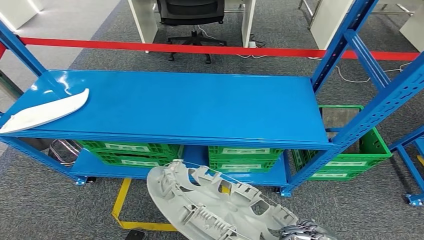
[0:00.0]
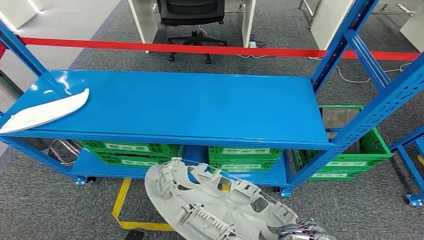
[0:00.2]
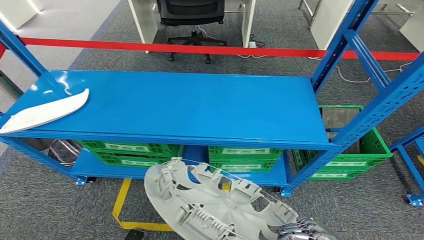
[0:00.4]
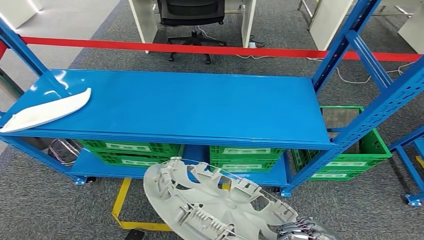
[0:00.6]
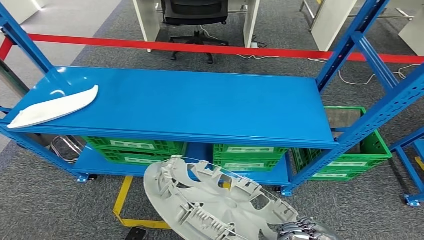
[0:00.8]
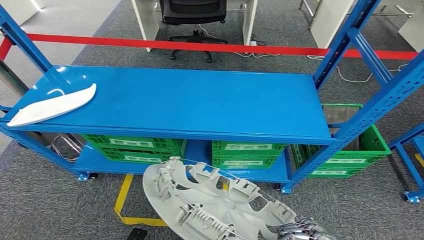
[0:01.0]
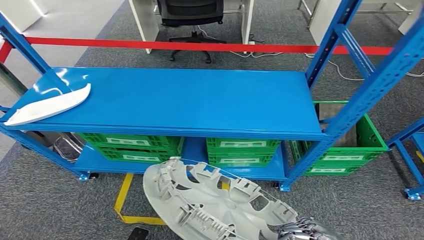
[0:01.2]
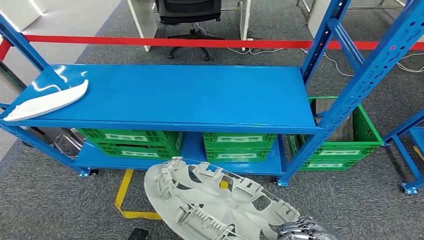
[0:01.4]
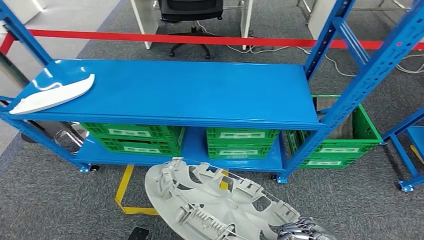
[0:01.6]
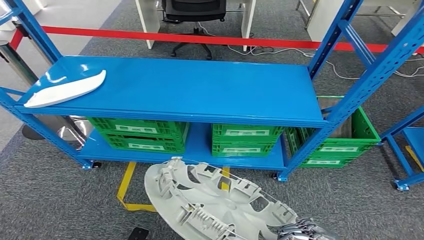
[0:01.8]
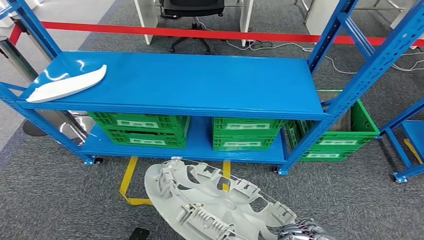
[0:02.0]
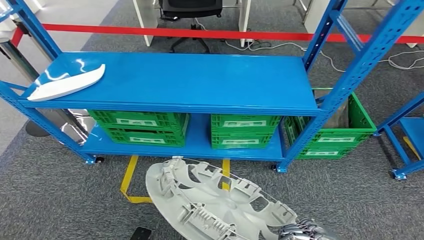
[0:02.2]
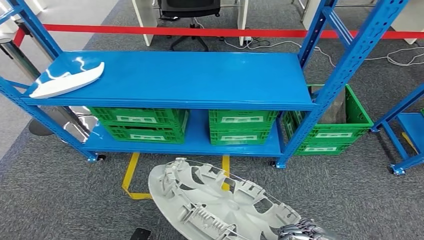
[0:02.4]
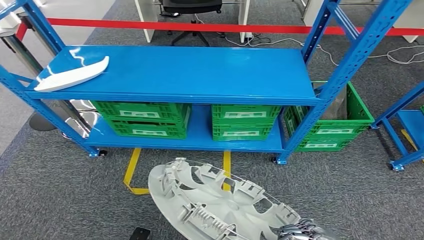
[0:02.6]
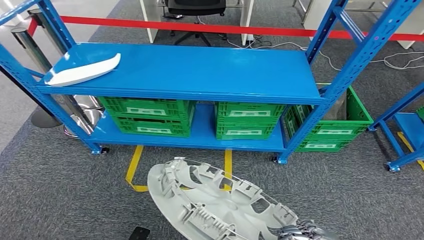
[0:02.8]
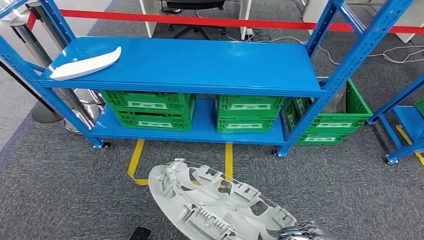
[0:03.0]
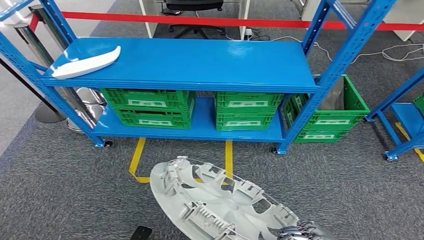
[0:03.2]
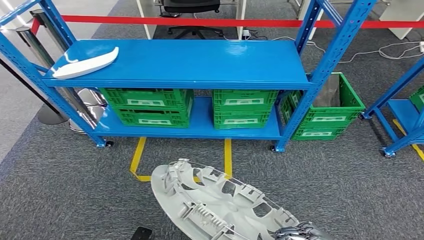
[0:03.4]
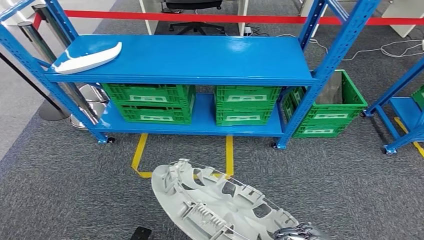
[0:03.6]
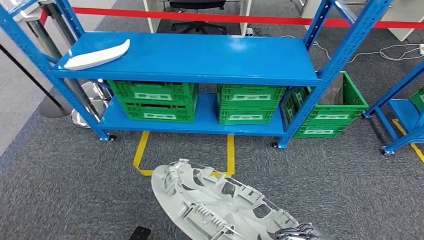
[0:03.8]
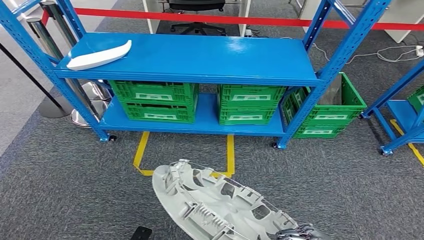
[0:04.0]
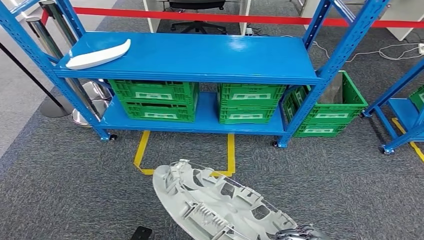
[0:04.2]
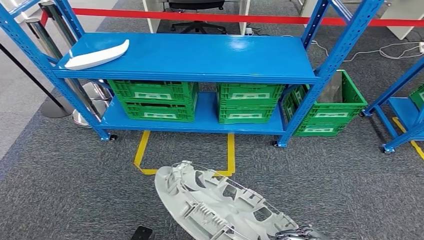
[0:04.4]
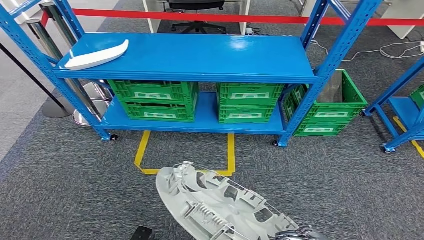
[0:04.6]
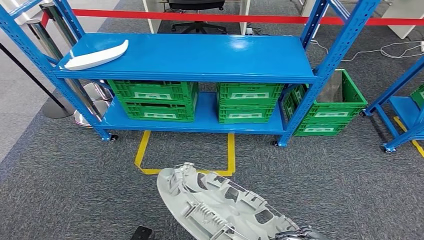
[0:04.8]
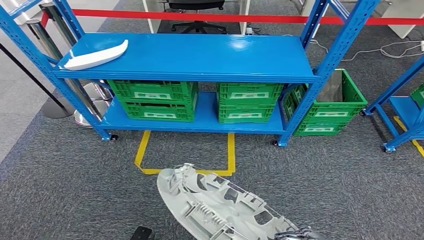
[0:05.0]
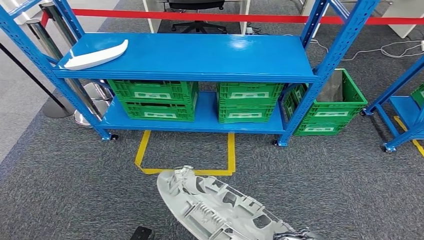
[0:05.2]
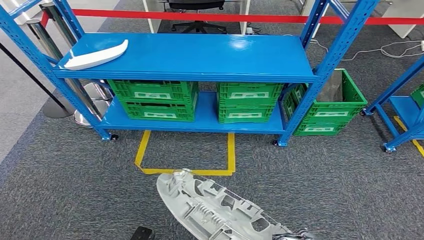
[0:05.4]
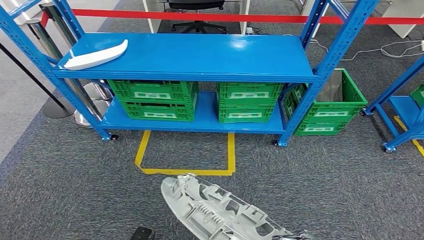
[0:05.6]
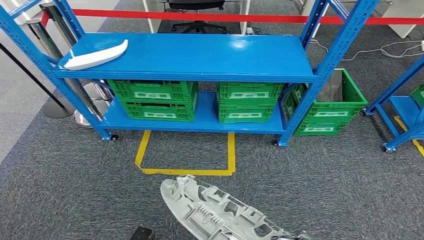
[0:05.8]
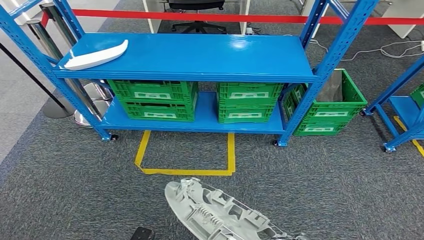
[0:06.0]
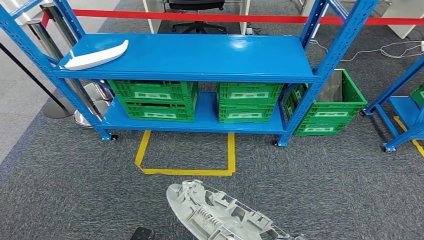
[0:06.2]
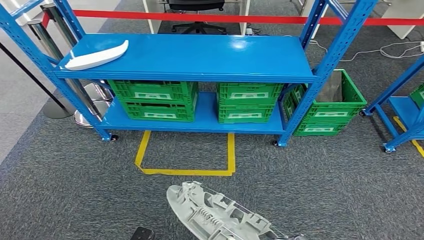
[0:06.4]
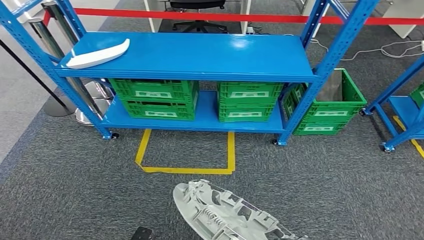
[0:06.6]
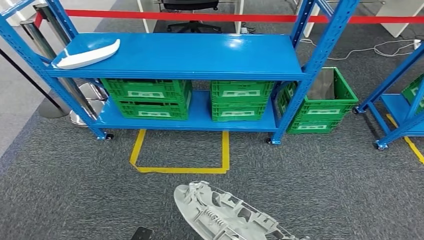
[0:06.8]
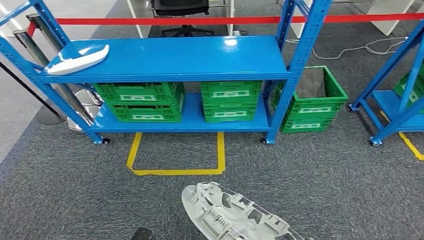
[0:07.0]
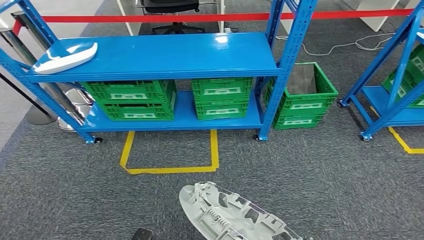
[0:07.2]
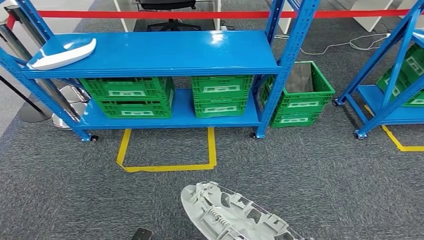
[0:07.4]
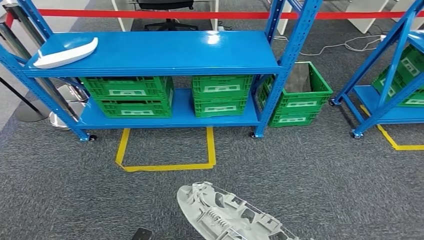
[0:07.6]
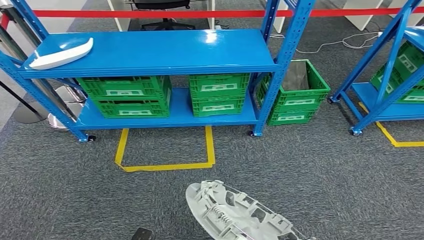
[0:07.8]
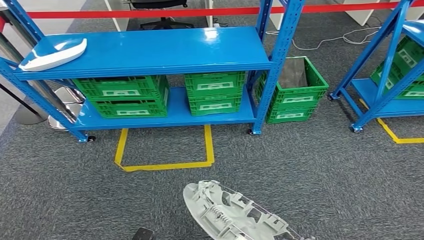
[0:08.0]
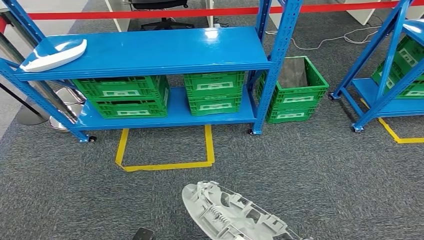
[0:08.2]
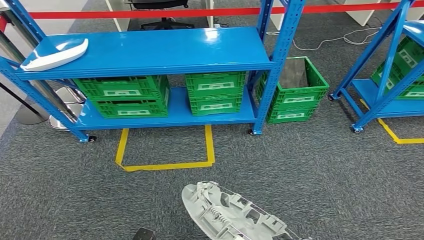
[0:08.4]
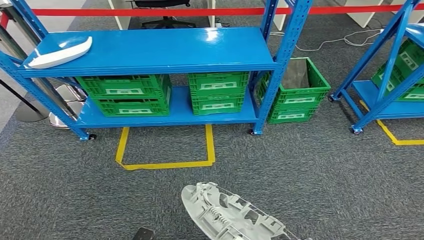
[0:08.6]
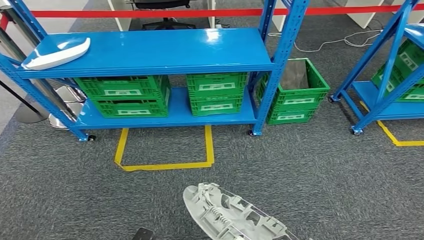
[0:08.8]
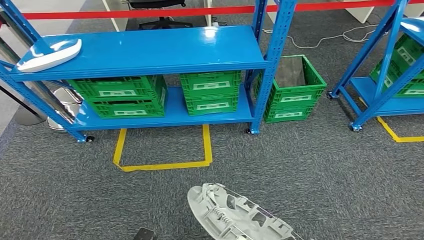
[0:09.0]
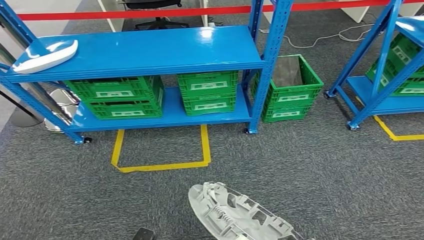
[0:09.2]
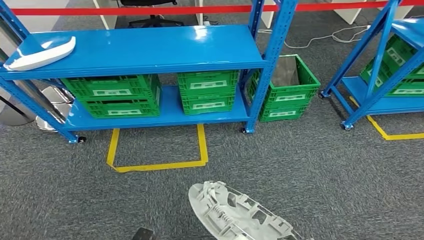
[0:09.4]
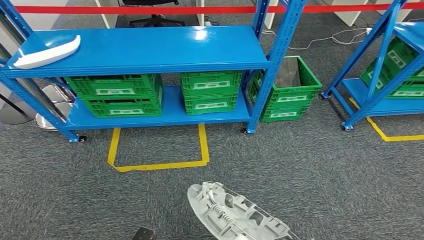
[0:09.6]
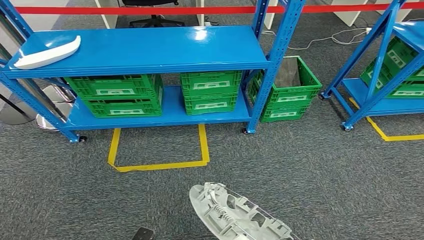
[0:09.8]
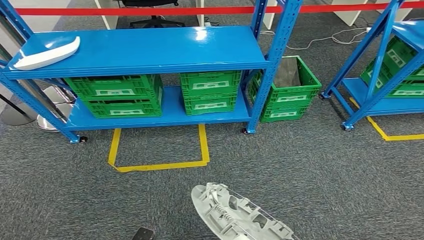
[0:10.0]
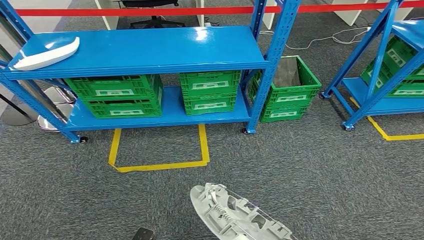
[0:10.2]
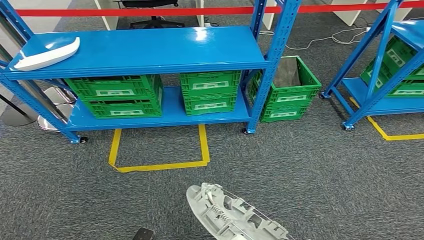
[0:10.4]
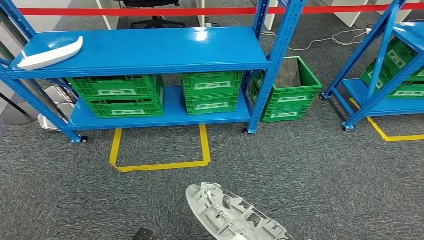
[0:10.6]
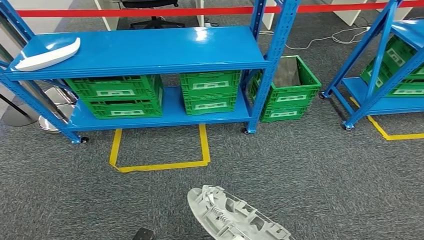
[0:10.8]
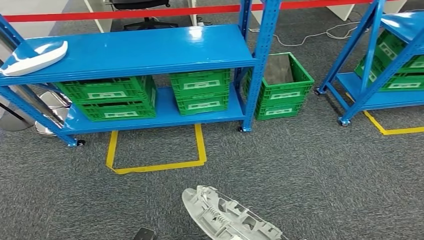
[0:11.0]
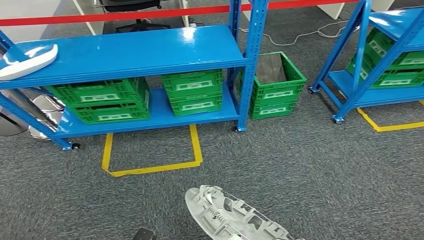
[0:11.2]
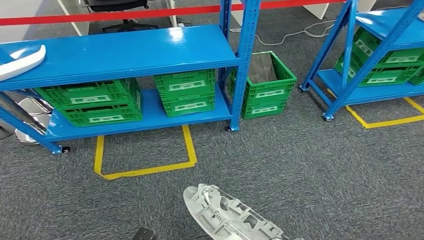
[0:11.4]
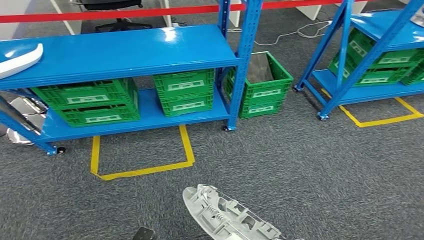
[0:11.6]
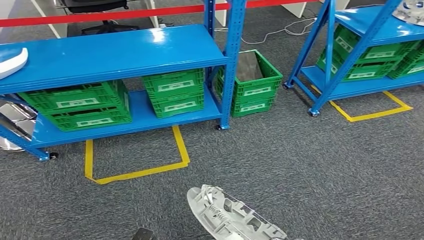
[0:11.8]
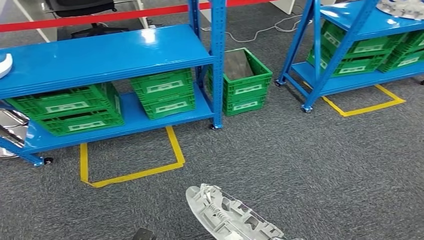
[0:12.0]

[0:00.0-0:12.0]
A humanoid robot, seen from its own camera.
0:04.4 to 0:06.0: The hands make only small movements.
0:09.0 to 0:10.4: Both hands stay put.

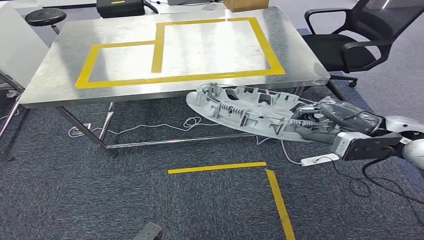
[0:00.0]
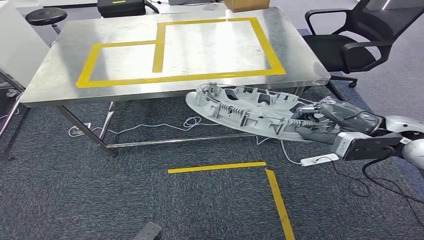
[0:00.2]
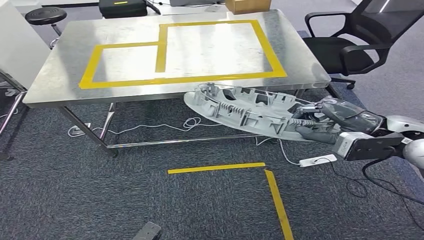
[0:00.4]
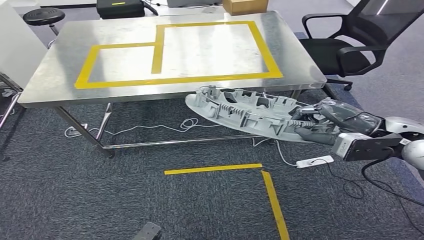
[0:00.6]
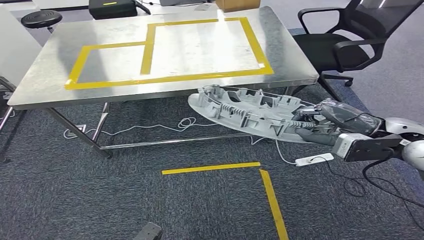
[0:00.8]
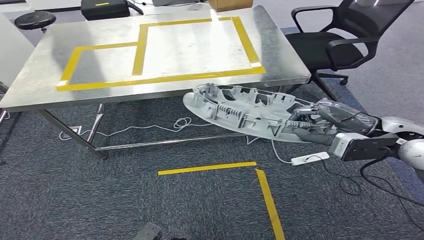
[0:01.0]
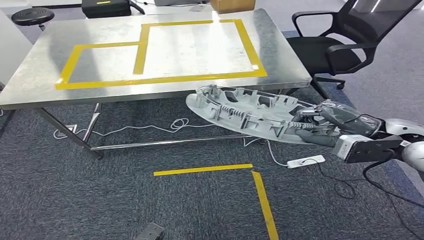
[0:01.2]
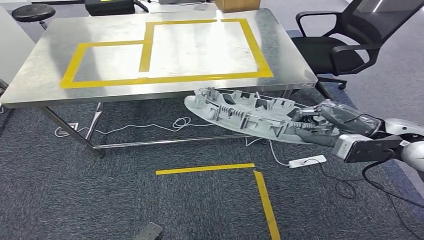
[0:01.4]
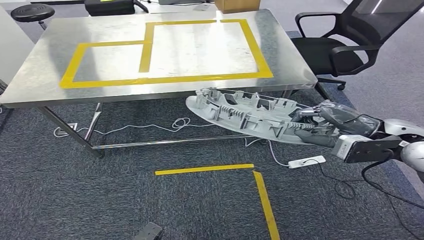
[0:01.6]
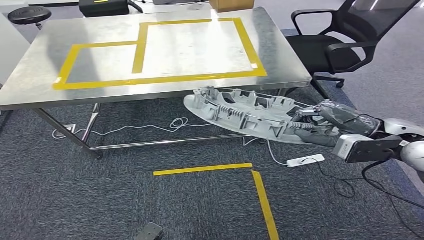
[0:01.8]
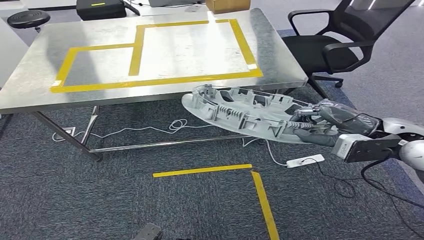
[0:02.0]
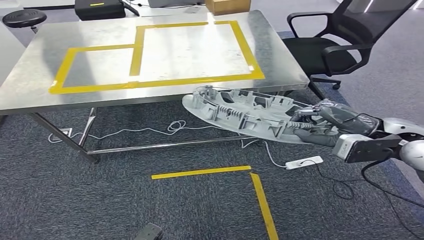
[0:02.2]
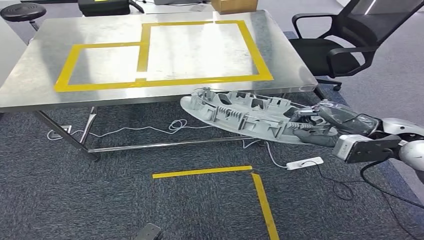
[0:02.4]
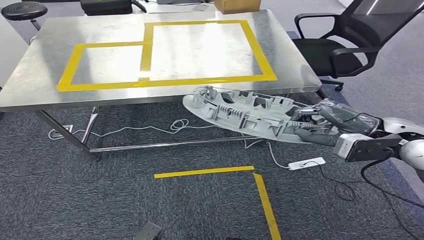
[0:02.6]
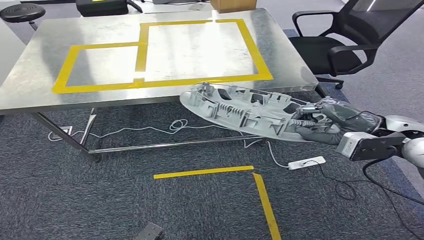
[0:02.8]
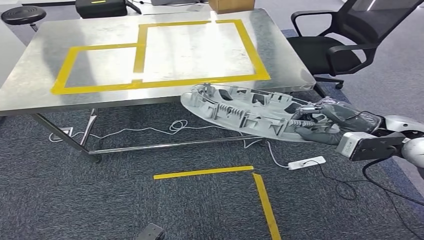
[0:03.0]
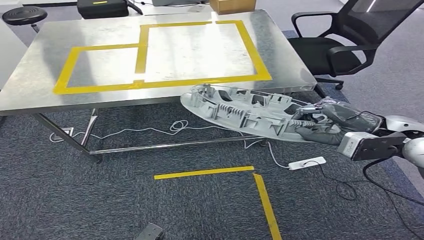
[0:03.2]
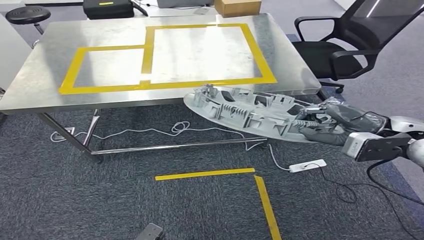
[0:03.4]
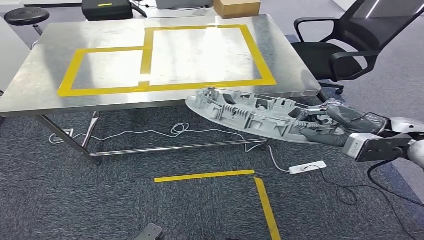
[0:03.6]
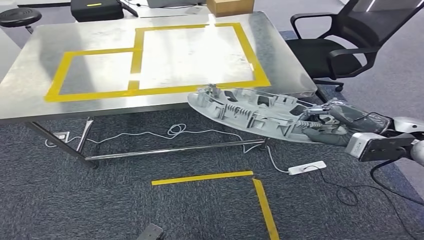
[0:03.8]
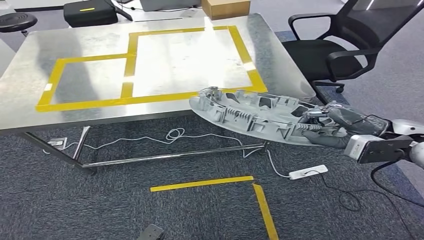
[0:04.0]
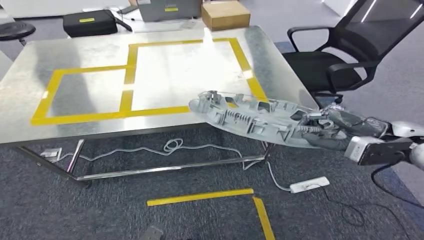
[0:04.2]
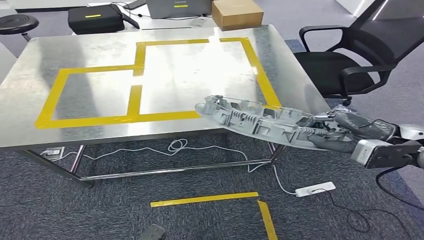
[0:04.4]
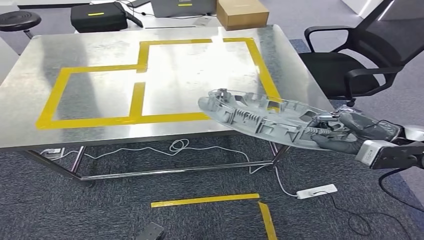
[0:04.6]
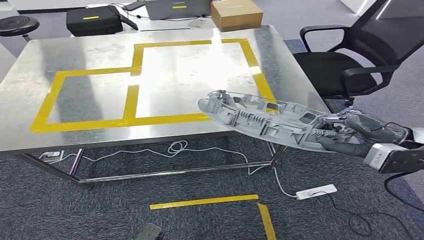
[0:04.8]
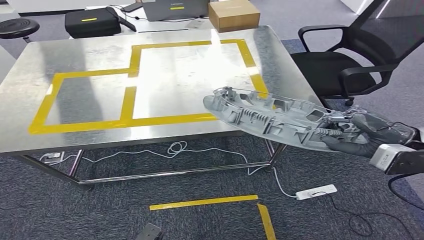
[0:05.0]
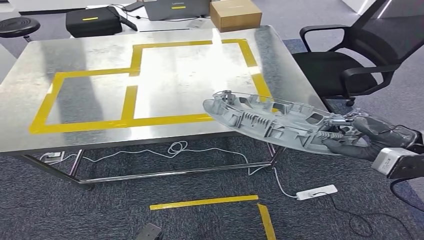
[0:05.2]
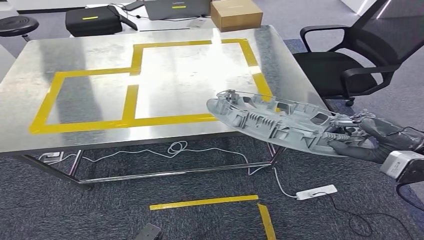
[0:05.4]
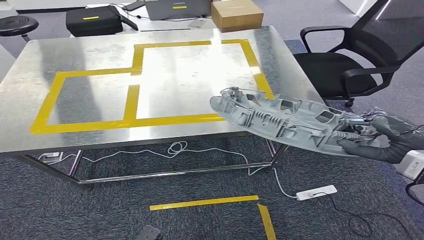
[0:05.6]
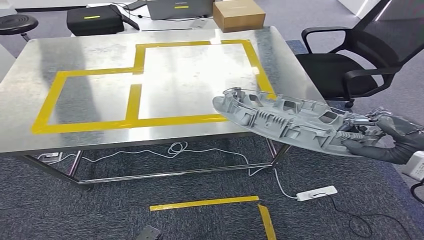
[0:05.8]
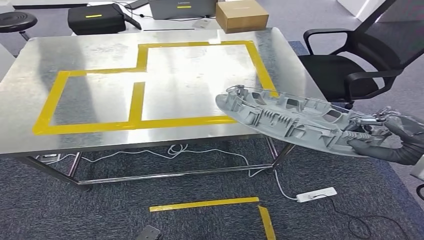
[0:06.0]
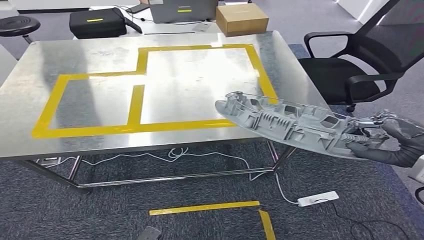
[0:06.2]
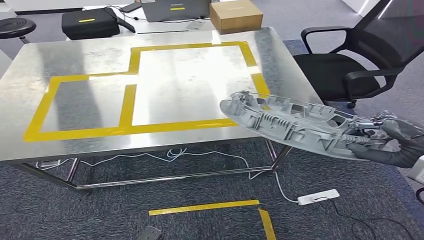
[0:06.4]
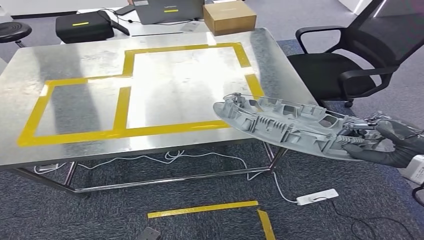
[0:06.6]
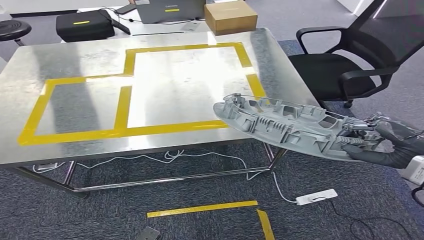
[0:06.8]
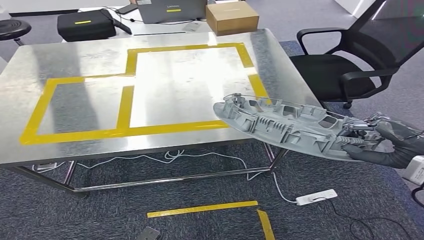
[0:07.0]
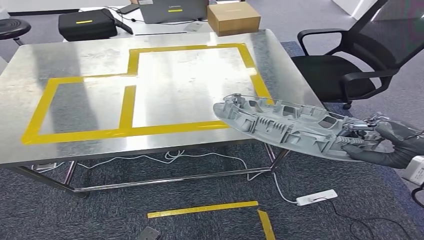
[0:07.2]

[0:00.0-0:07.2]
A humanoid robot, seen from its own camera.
0:01.4 to 0:02.8: Neither hand changes place.
0:04.4 to 0:05.8: The right hand shifts by roughly 5 cm.
